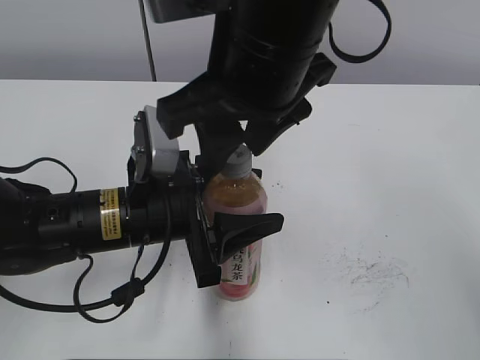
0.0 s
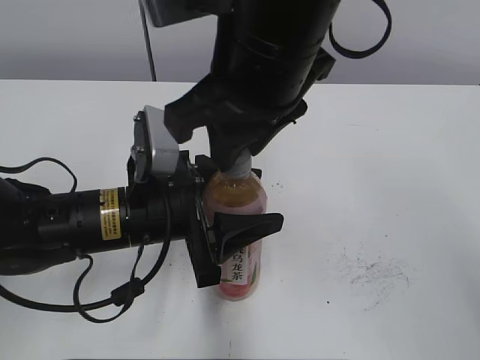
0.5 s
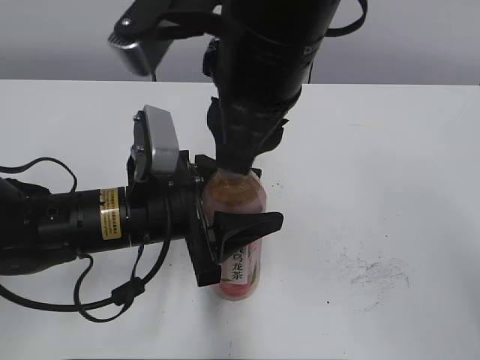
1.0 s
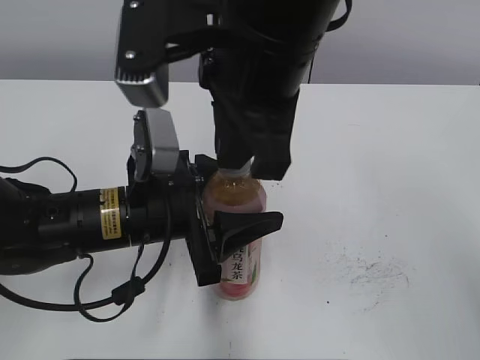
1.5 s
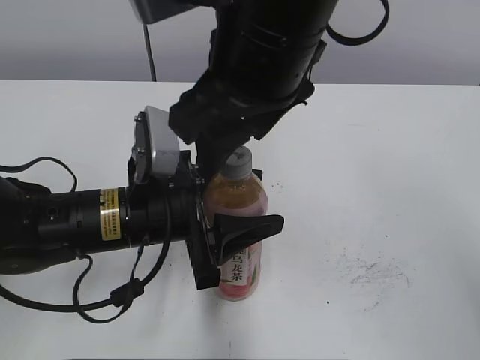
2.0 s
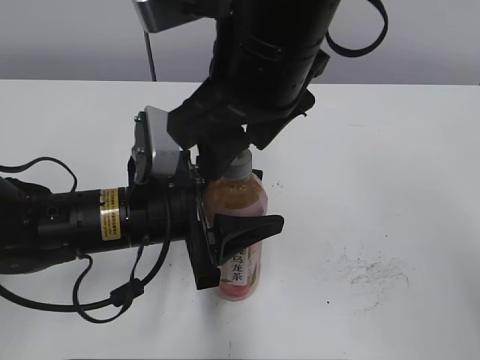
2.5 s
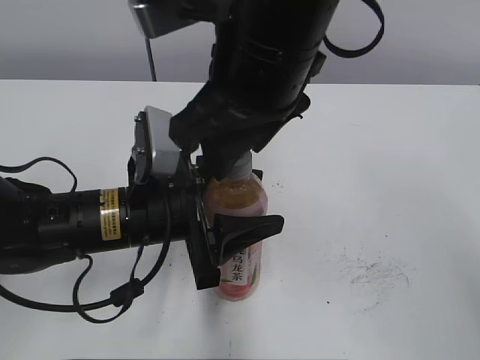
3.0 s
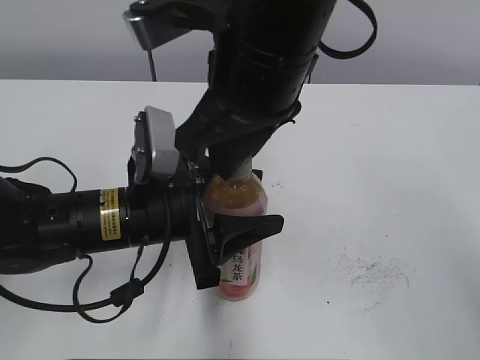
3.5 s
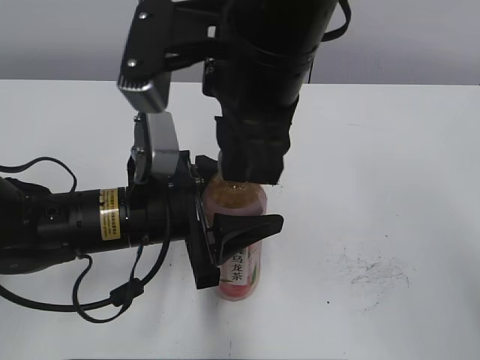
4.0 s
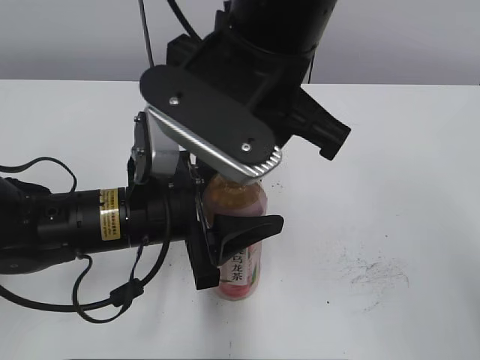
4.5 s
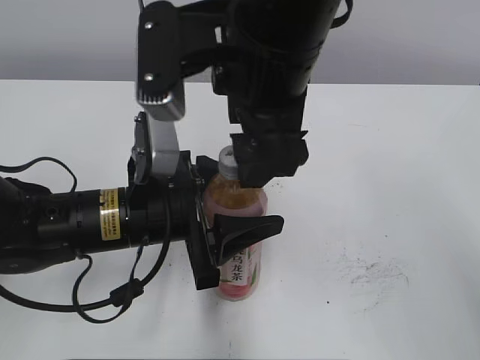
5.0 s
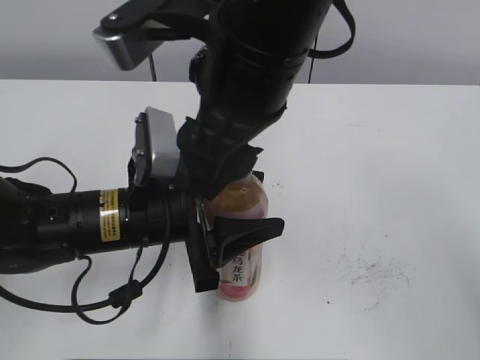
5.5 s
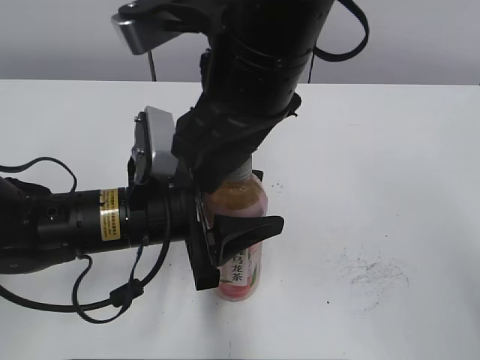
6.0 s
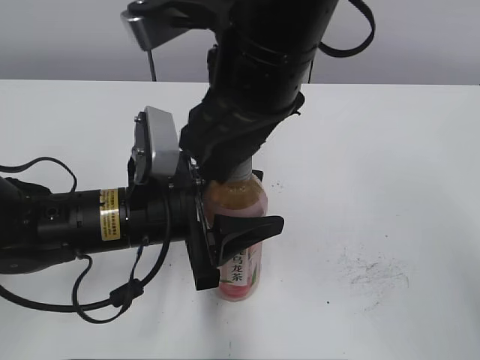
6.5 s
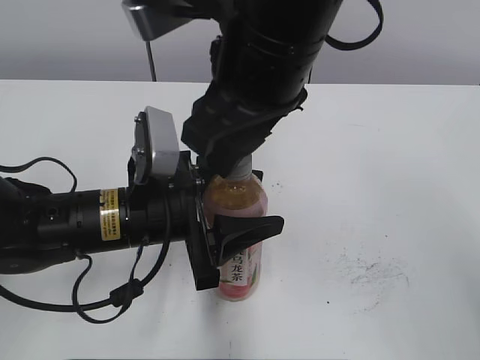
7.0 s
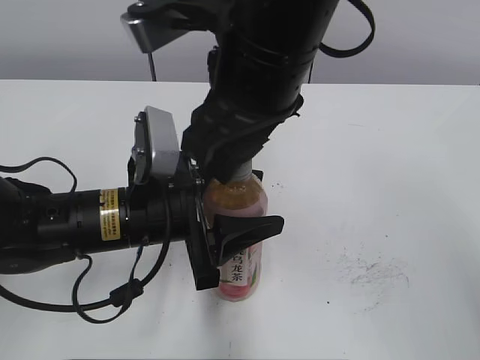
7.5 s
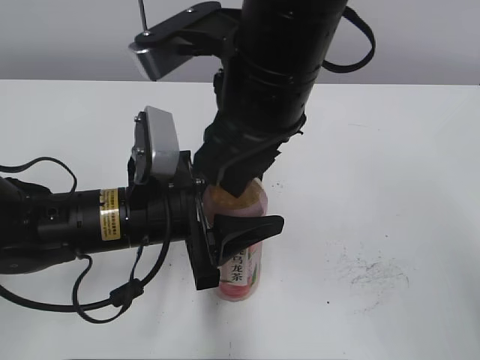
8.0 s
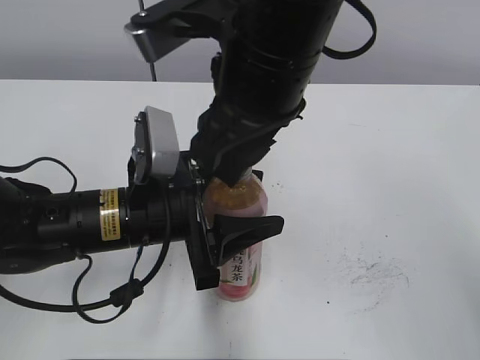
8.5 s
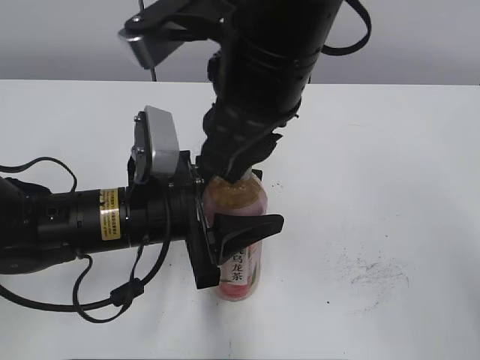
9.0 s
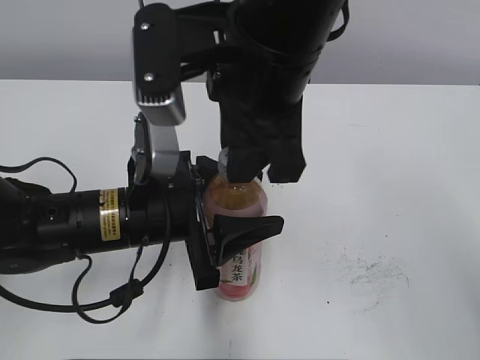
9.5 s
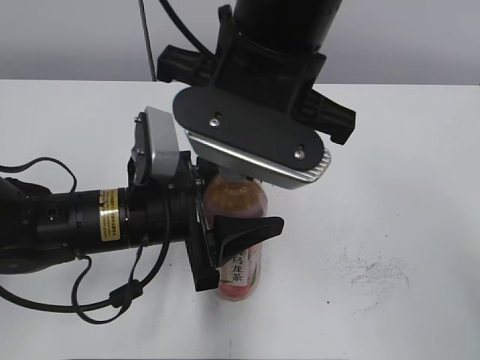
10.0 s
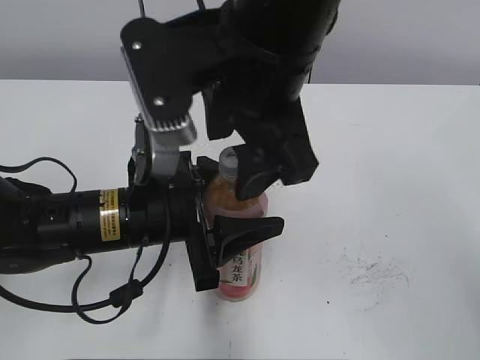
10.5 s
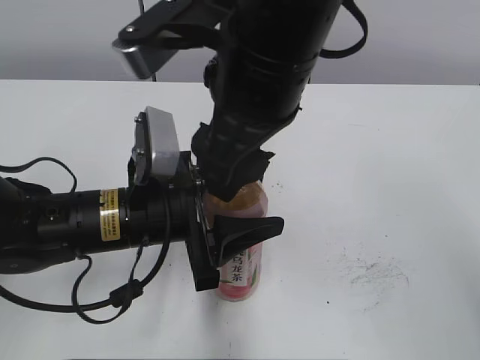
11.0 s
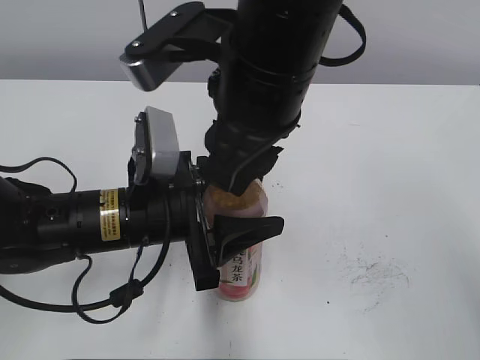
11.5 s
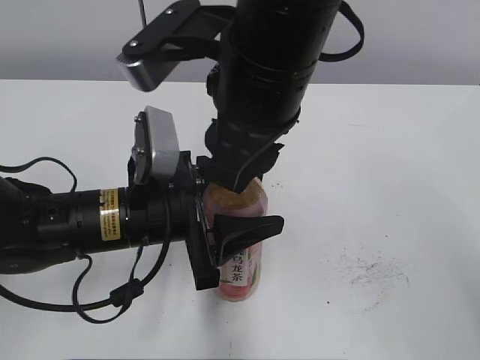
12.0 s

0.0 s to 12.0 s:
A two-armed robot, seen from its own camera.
0.0 to 2.0 s: The right gripper closes and opens again.
2.0 to 4.0 s: The right gripper closes its fingers.
4.0 to 6.0 s: The right gripper opens its fingers.
6.0 to 8.0 s: The right gripper closes.
10.0 to 12.0 s: The right gripper opens and closes again.

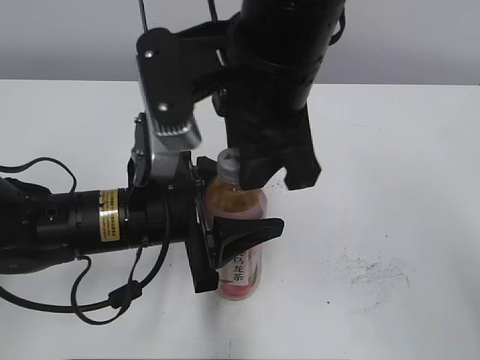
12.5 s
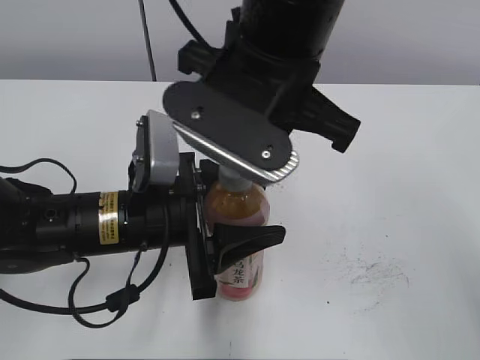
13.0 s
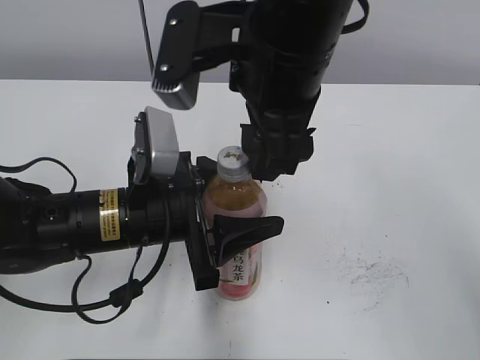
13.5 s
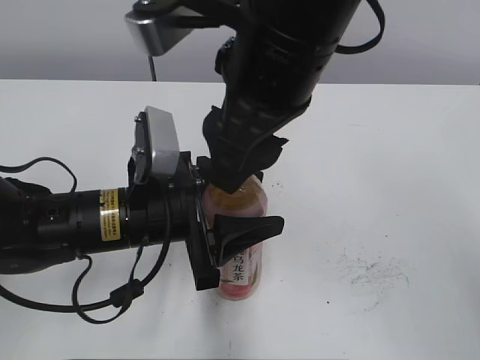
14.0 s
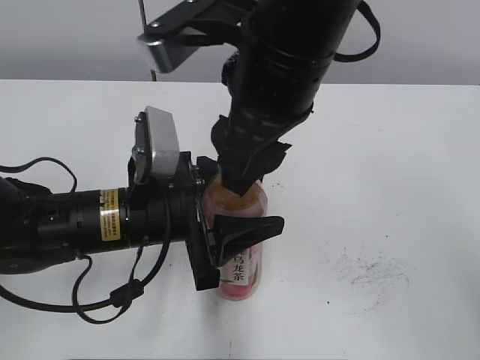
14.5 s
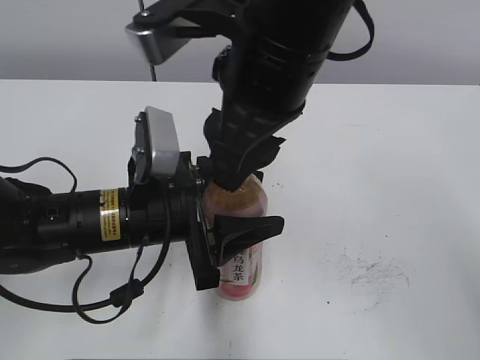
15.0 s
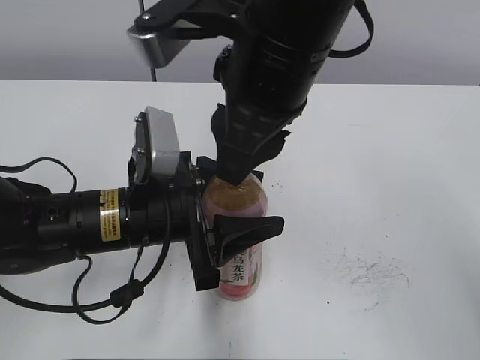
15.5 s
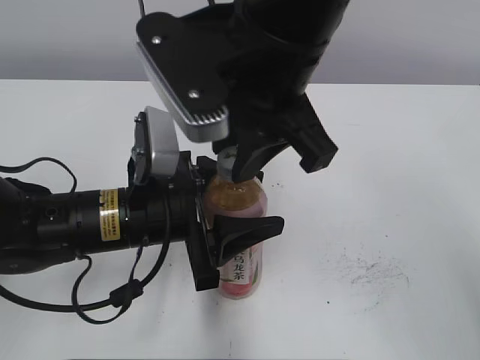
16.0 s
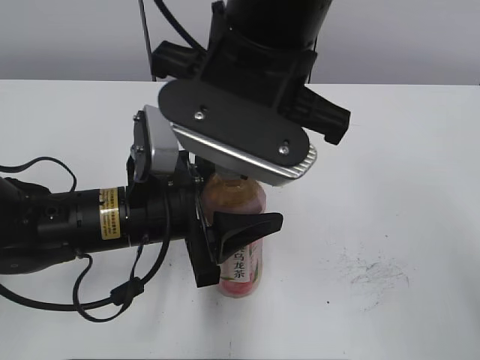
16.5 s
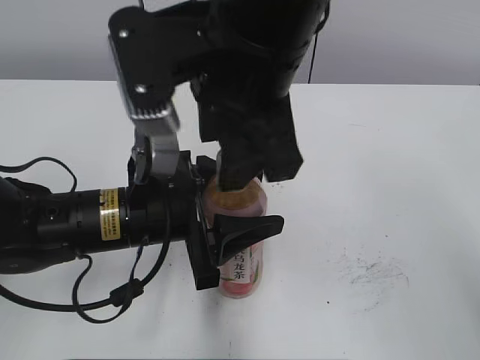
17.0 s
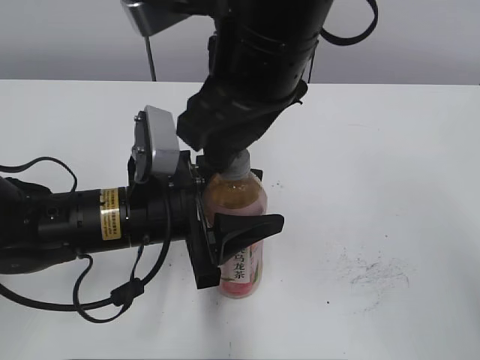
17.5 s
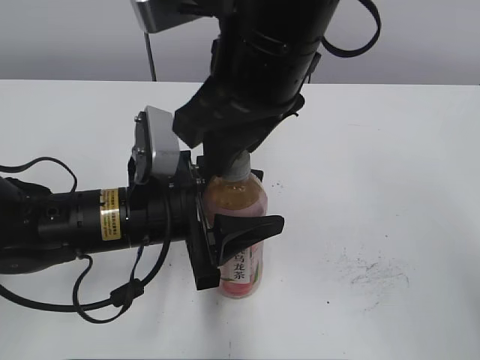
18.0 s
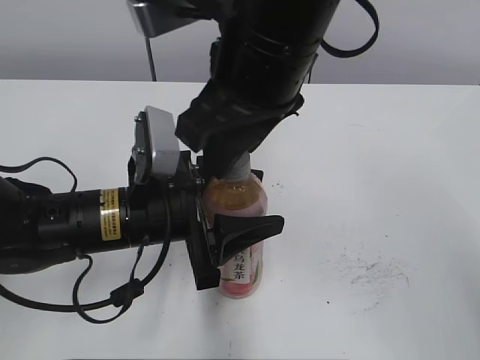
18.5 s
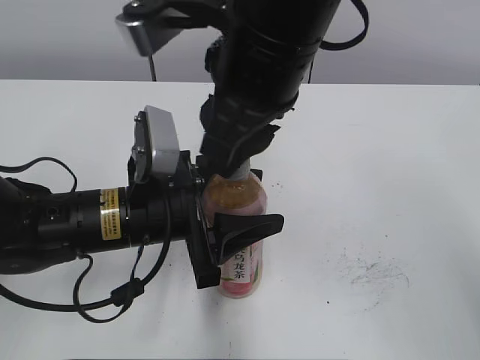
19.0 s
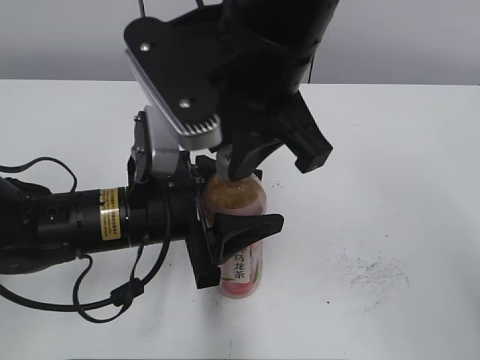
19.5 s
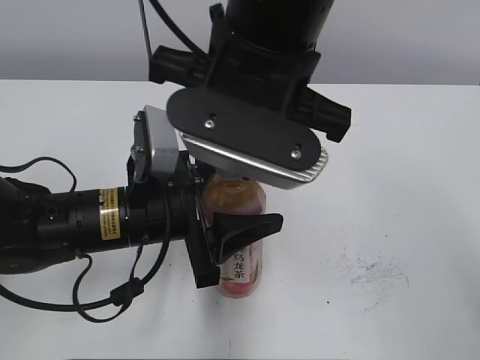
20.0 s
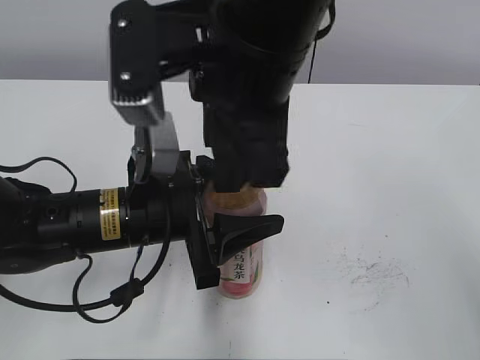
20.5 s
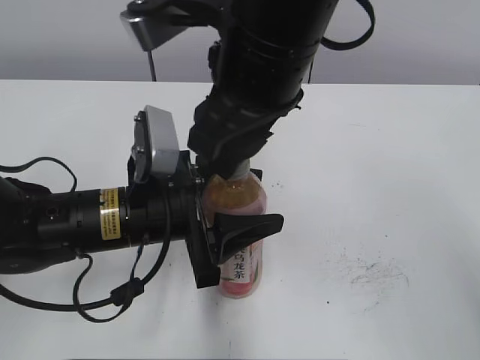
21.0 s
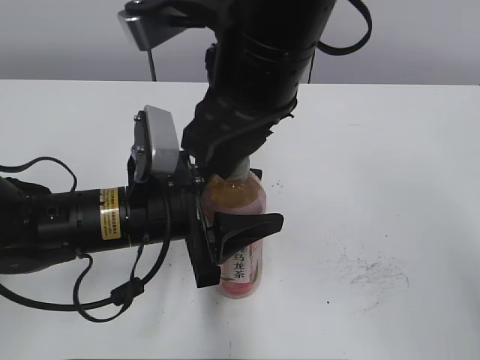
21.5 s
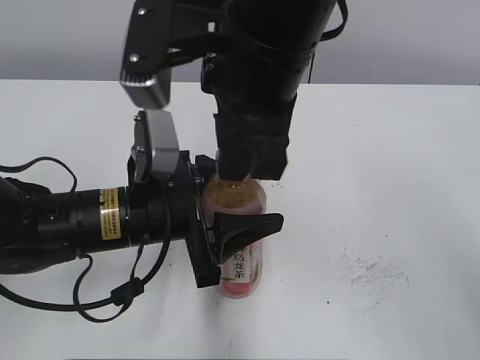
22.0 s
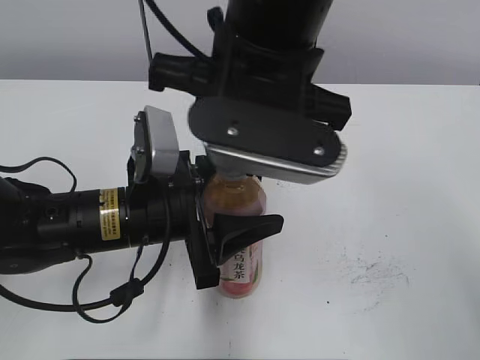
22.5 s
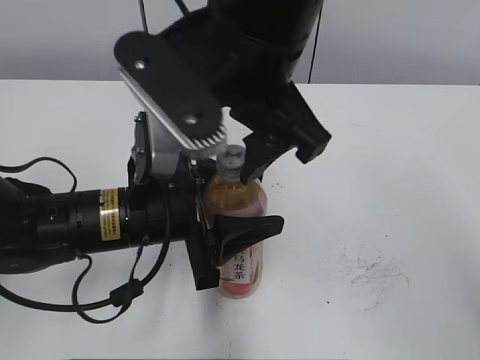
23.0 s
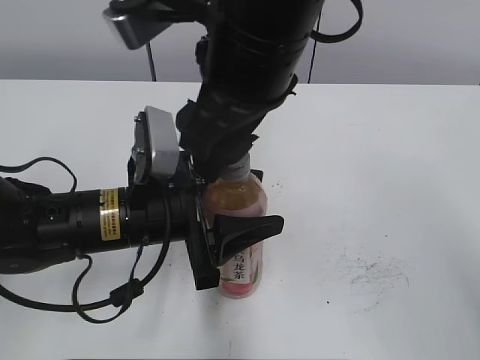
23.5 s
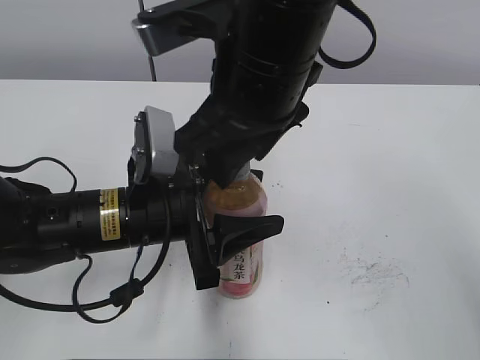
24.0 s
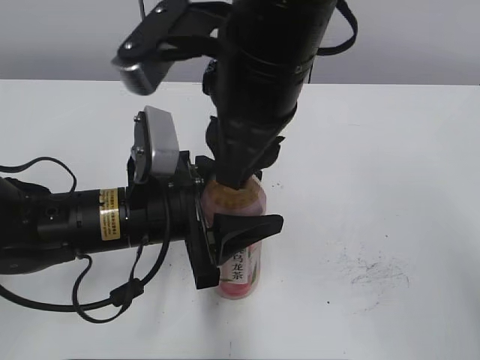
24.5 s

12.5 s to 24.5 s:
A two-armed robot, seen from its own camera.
12.5 to 14.5 s: The right gripper opens its fingers.
14.5 to 16.5 s: The right gripper closes up.
20.5 to 22.5 s: The right gripper closes its fingers.
22.5 to 24.5 s: The right gripper opens, then closes once more.

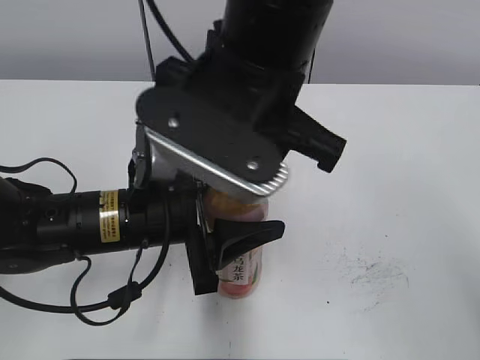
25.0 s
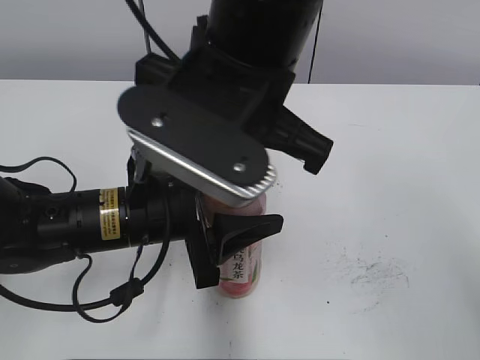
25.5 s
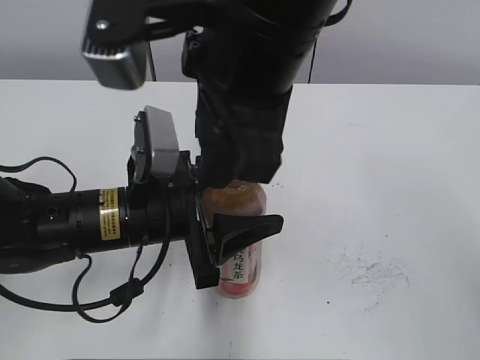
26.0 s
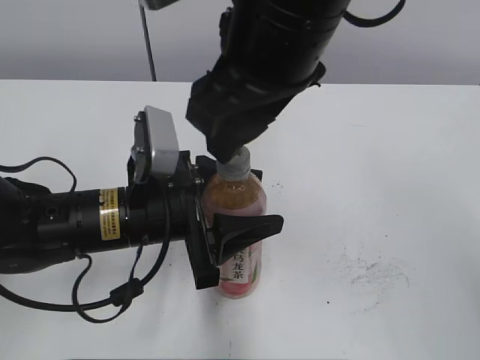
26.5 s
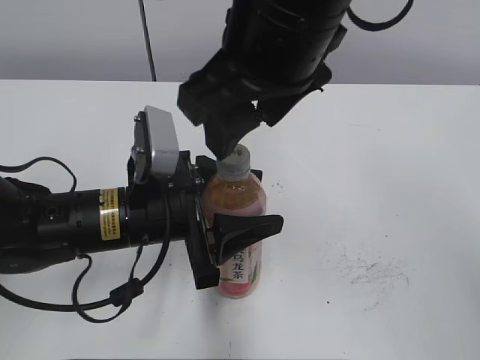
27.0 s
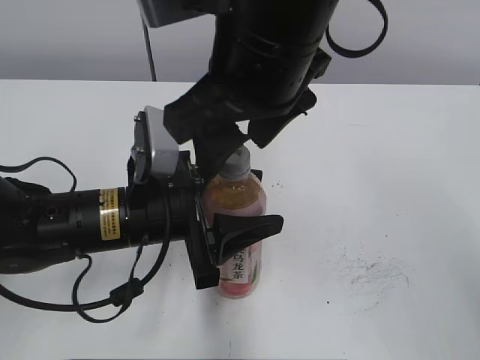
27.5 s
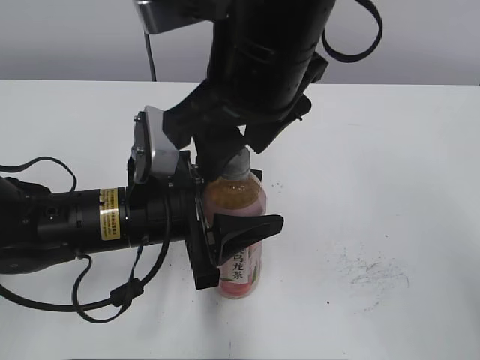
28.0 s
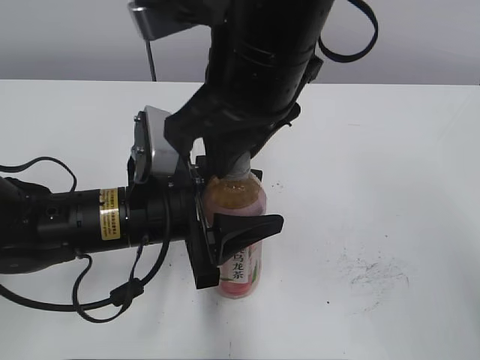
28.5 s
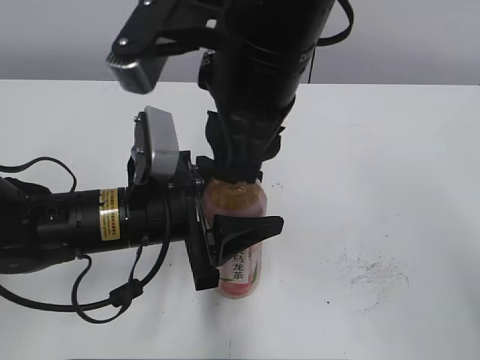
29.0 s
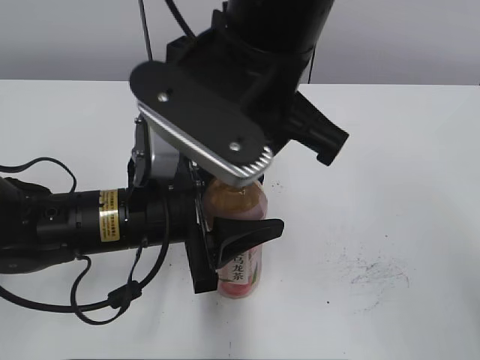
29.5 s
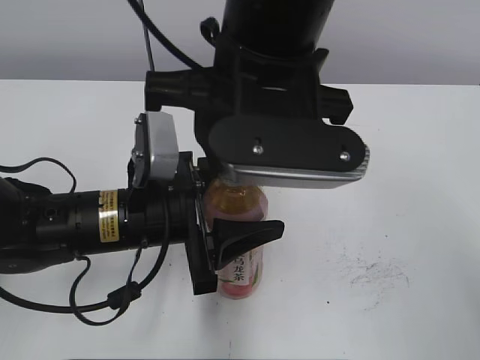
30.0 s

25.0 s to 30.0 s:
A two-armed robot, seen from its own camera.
25.0 to 27.5 s: The right gripper opens.
27.5 to 30.0 s: The right gripper closes up.
